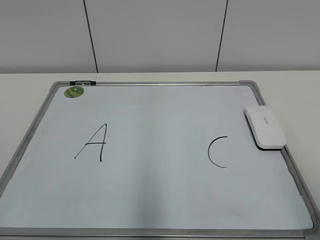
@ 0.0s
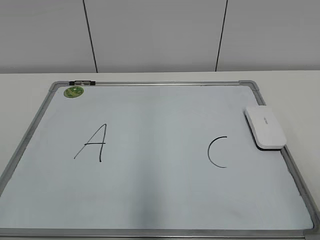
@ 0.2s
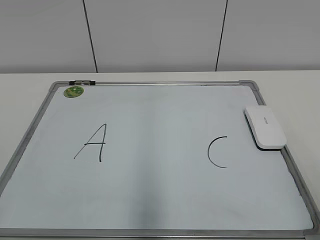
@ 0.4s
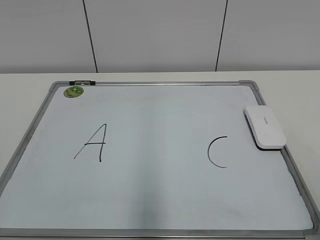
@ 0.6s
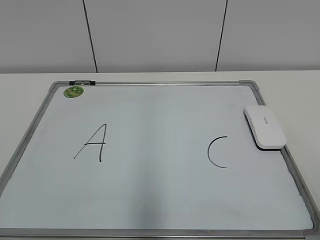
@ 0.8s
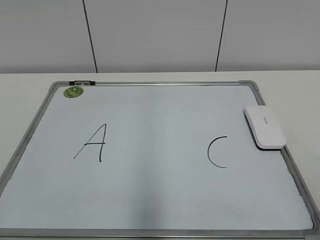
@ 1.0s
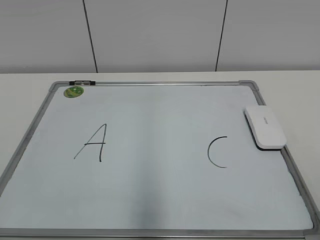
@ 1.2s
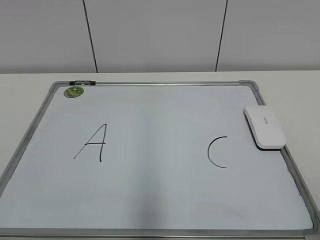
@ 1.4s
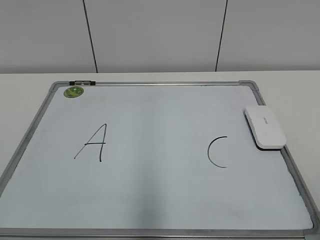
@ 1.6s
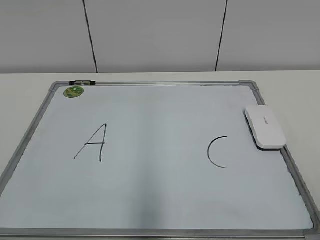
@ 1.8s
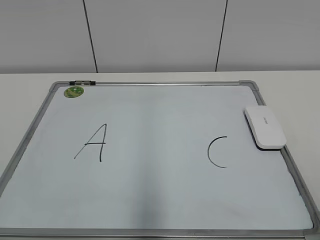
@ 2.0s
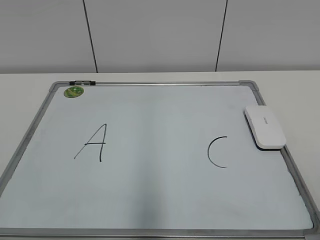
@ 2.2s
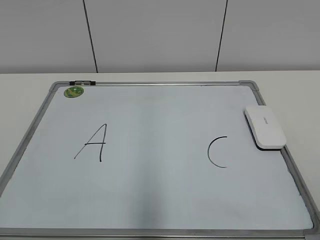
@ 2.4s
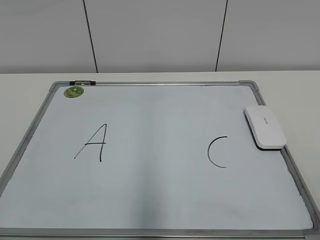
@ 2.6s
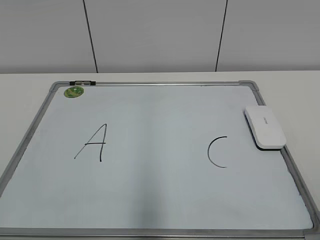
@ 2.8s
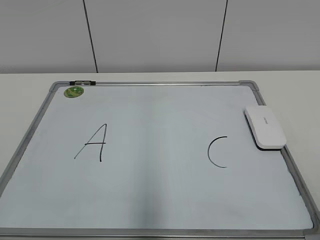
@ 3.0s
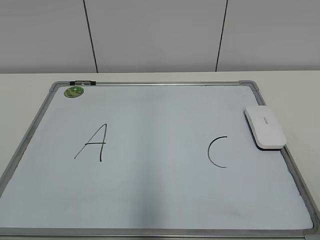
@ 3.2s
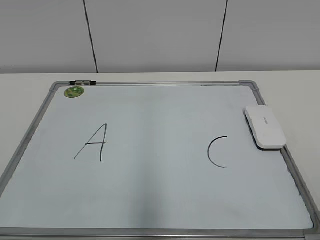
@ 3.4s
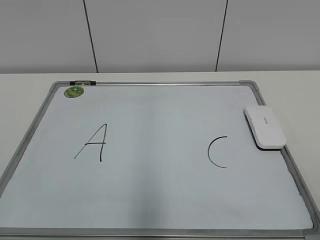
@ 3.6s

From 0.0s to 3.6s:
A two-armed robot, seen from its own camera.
Task of the whole recording: pick up the eraser on the blackboard and erase the letter "B".
From 1.8s to 3.6s: Neither gripper changes place.

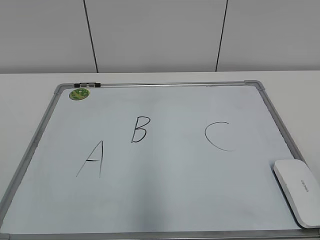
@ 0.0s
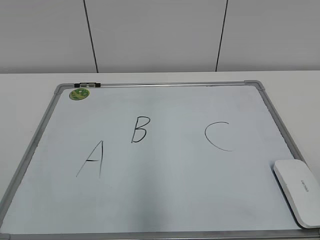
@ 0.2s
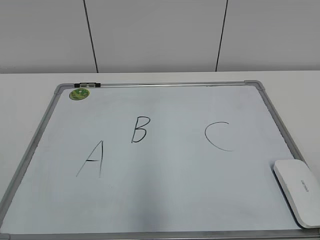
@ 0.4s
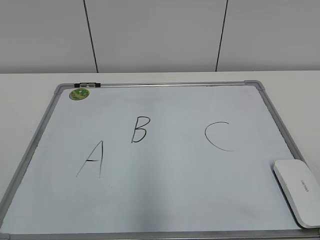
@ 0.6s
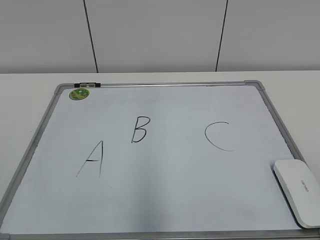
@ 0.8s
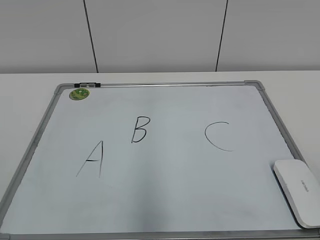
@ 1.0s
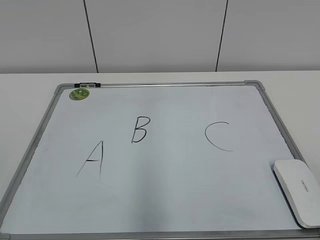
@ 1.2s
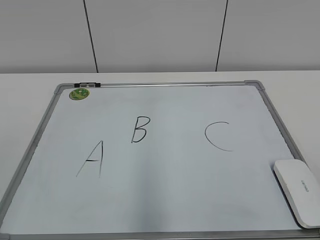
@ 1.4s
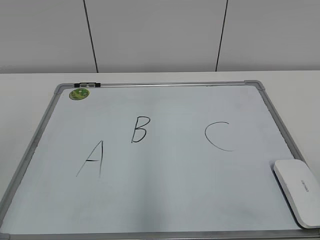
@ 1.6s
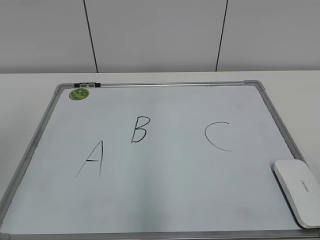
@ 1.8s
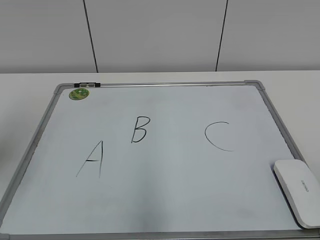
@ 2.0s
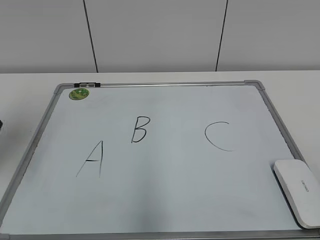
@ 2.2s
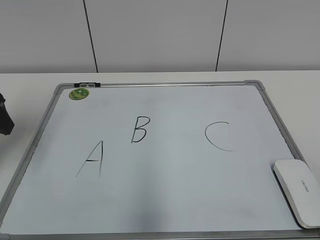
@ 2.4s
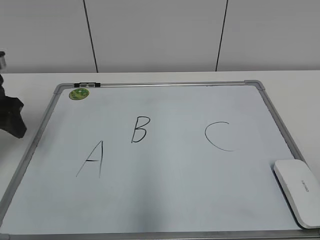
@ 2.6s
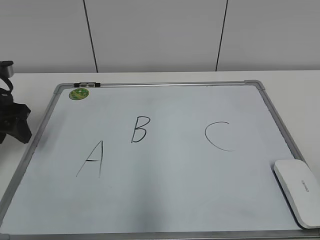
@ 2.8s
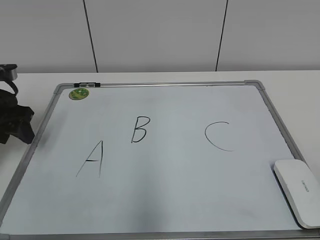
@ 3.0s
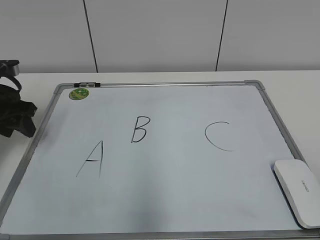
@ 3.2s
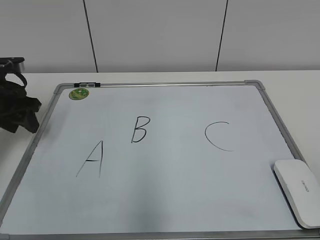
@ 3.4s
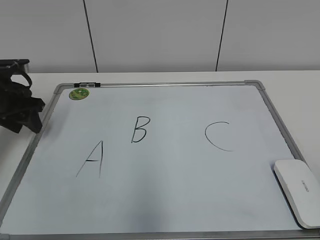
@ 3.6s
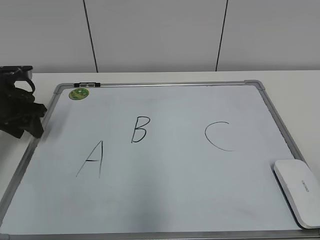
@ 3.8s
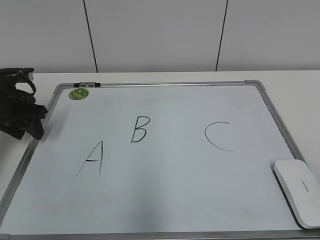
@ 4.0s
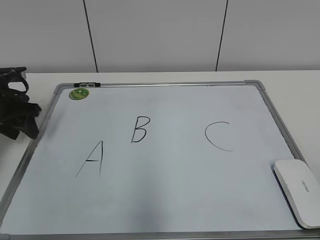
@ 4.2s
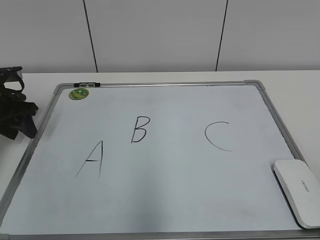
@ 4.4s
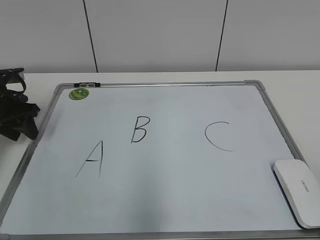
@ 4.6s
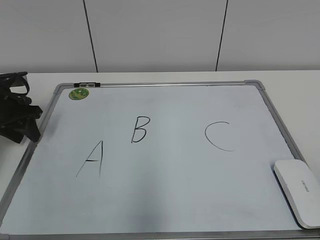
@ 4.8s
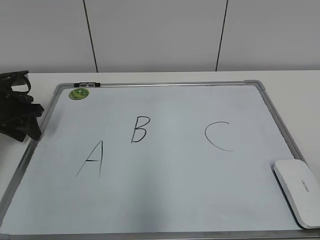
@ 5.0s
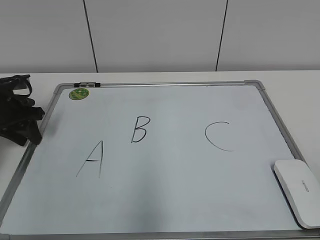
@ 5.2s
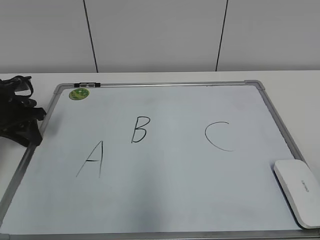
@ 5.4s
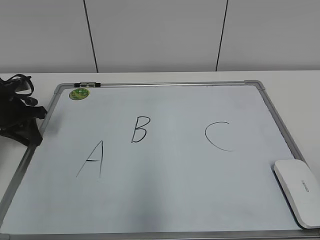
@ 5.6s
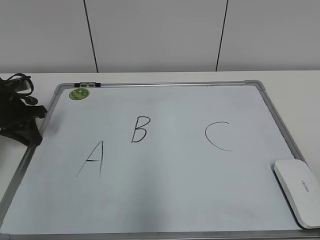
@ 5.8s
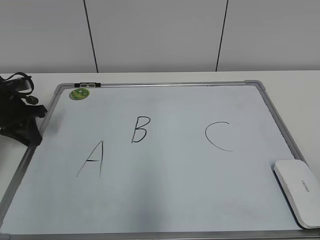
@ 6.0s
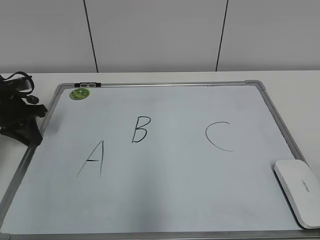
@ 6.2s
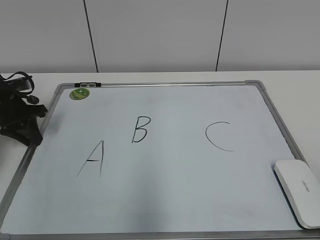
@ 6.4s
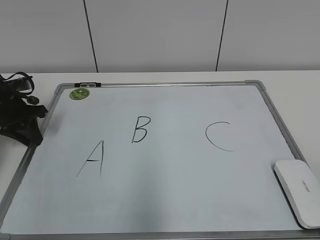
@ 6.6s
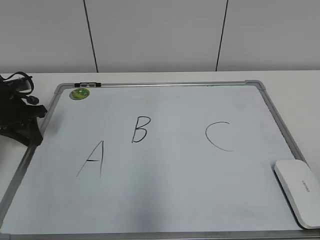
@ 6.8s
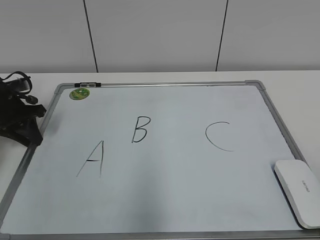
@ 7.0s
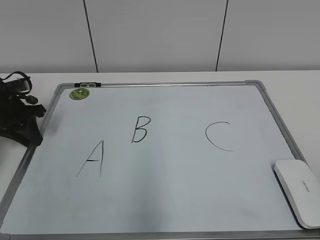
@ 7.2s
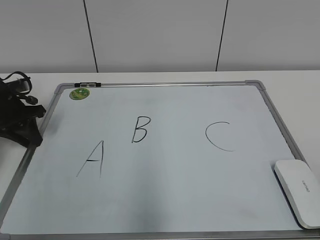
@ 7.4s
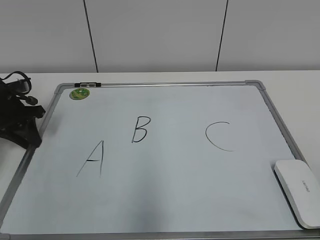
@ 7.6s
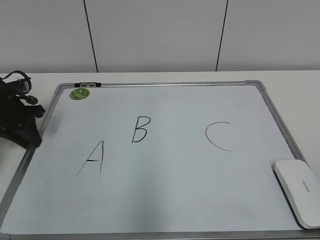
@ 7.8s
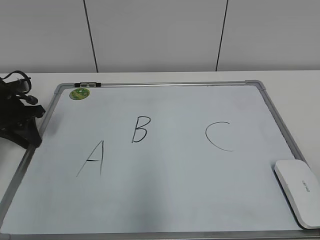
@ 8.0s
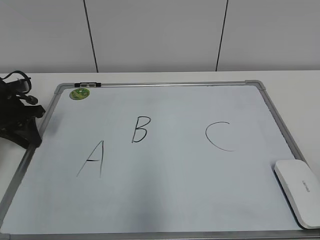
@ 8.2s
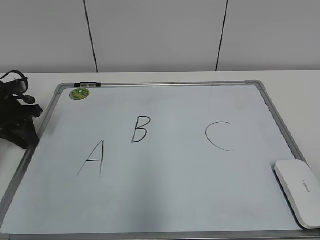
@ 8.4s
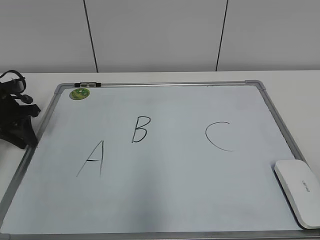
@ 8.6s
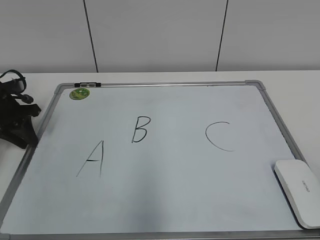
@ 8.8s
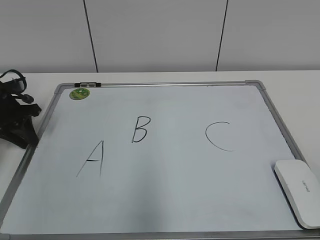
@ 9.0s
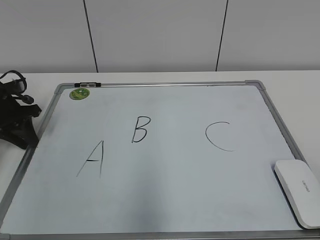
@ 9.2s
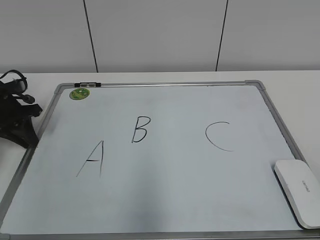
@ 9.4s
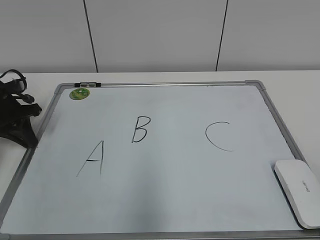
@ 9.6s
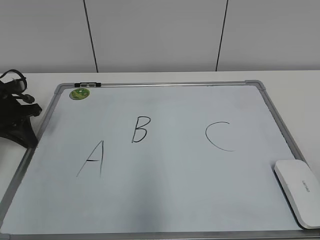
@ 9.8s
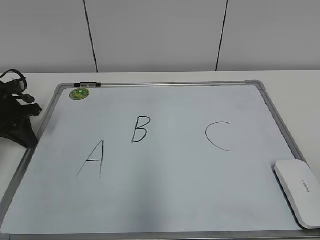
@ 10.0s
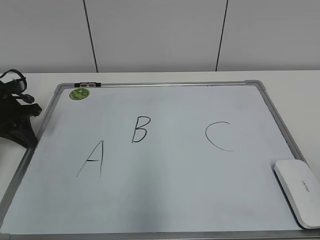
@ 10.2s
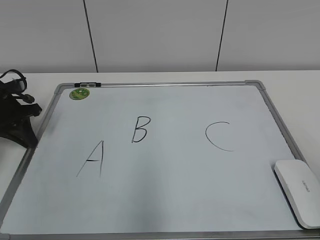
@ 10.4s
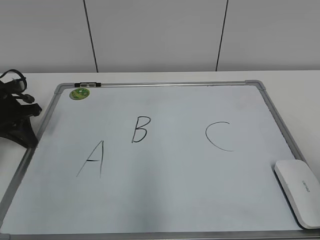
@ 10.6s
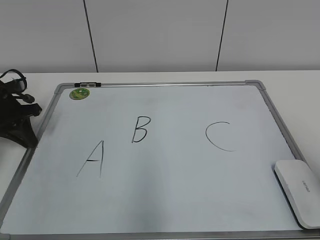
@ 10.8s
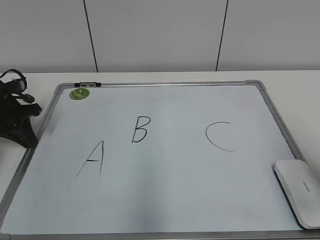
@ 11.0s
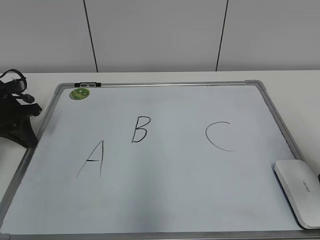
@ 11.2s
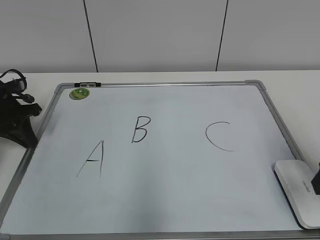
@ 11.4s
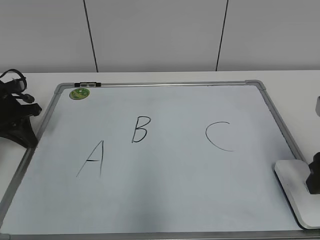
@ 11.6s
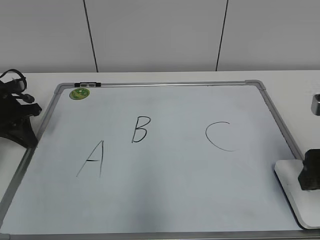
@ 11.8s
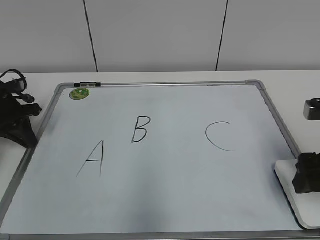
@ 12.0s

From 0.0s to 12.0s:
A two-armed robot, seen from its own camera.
Task of the whole recording: pick up the eraser on the blackboard and erase the letter "B".
Step, from 0.0s to 9.4s: Hold the drawing board steady with your left hand.
From 1.6s to 3.0s: The left gripper moves forward and downward, some 30 cm.
From 3.0s to 4.4s: The left gripper ends up some 5 cm from where it was.
From 4.4s to 6.0s: The left gripper closes up.
From 6.0s to 7.6s: Neither gripper changes place.
From 7.6s to 9.0s: Both grippers stay put.
From 10.4s to 12.0s: The right gripper is displaced forward and downward by approximately 20 cm, and opens up.

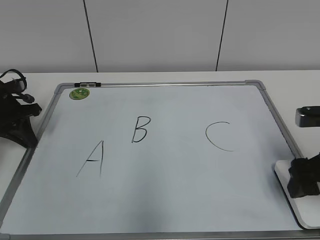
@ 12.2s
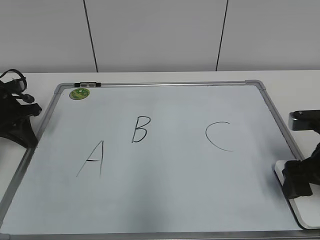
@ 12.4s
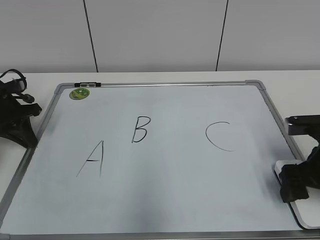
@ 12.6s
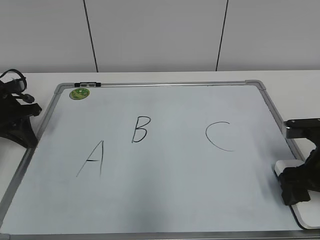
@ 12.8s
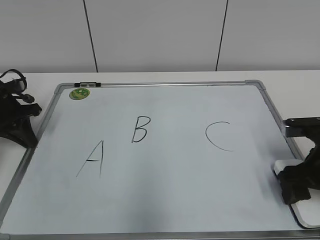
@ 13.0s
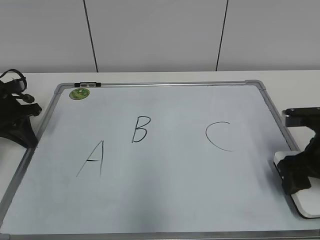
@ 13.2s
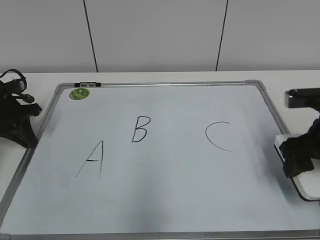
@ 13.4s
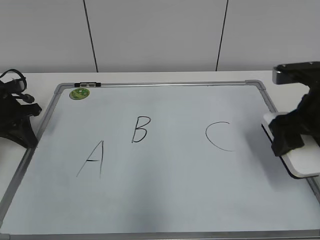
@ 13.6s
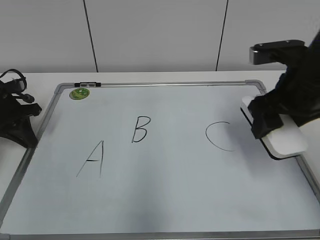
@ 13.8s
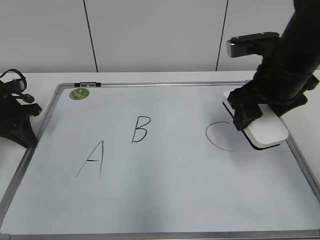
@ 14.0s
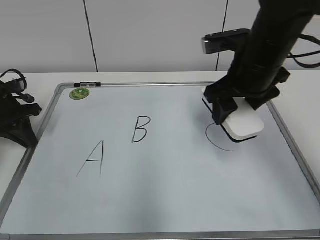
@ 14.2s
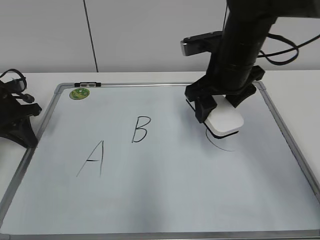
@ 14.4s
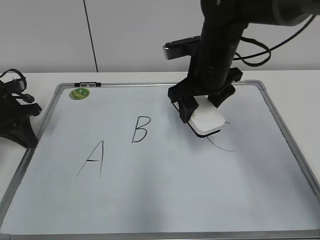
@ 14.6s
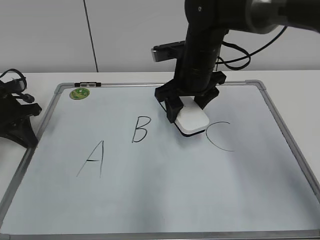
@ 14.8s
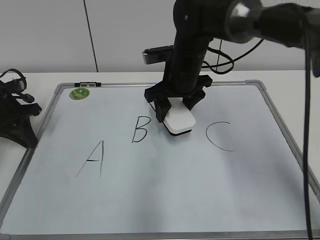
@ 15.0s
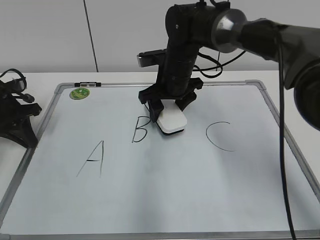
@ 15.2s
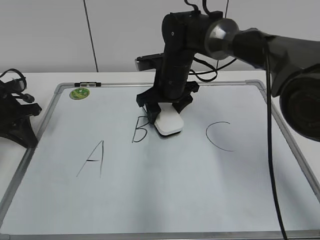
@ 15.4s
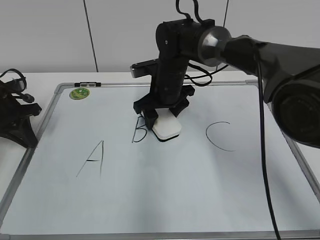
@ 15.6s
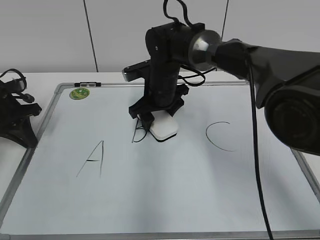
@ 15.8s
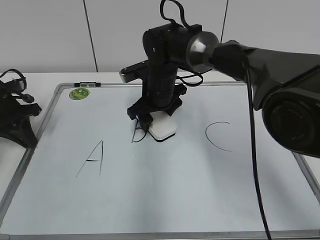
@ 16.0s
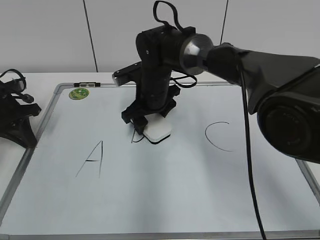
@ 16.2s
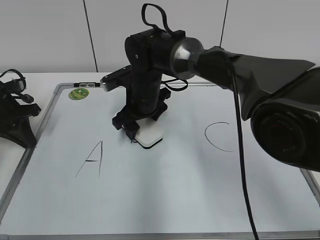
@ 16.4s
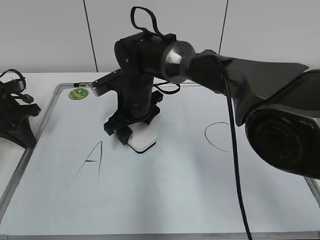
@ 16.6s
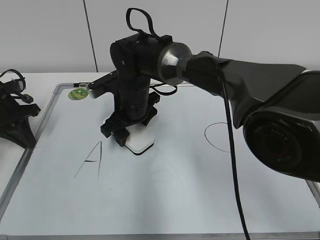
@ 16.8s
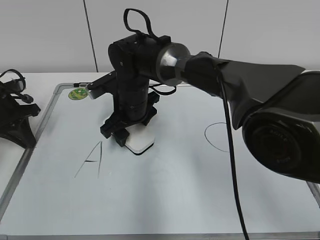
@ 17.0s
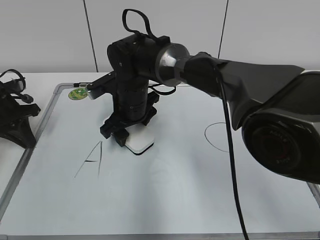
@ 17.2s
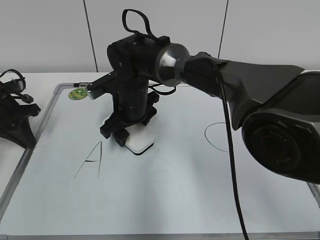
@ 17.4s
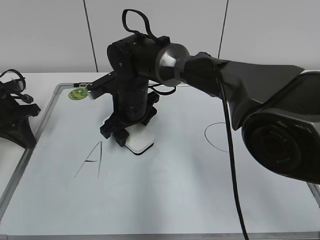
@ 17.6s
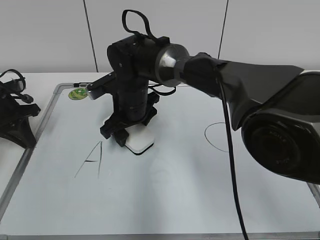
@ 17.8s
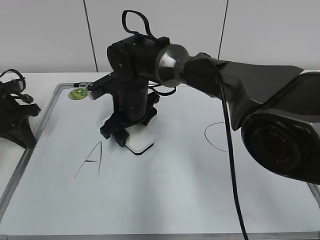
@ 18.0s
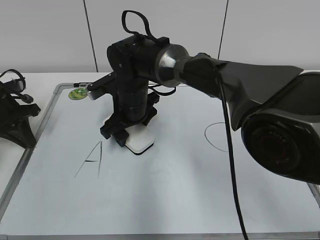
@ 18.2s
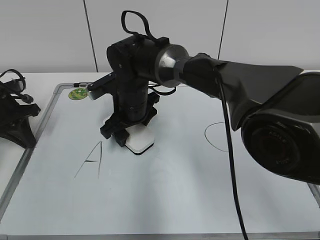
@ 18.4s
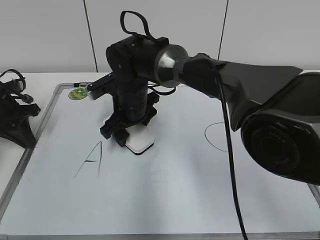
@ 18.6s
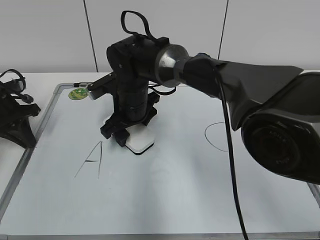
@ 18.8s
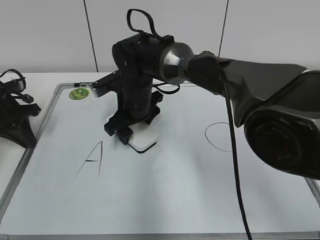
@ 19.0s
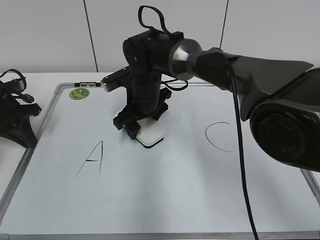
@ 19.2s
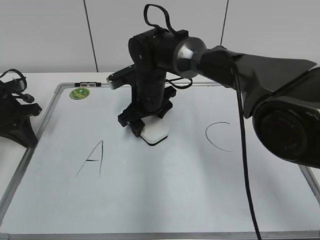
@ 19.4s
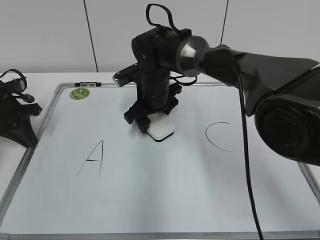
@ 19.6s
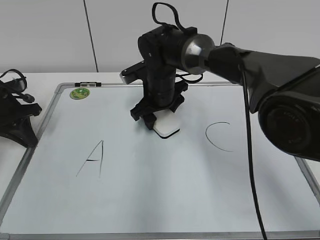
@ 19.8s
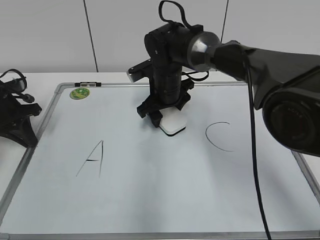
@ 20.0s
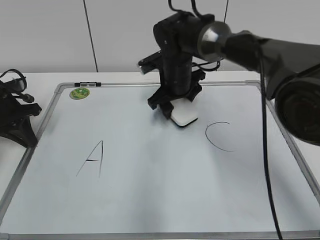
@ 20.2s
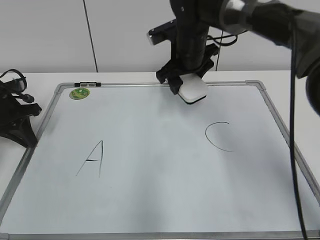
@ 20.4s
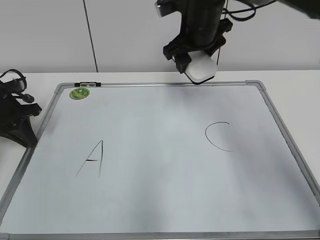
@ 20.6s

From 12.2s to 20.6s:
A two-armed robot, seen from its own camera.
Task of the whole recording: pick up the eraser on the blackboard and erase the letter "B".
Step, from 13.0s to 20.0s: Erase the letter B with your right hand.
From 12.2s to 13.6s: The right gripper changes place by some 5 cm, and closes.
From 13.6s to 15.0s: The right gripper moves to the left and forward, approximately 25 cm.
From 15.0s to 16.4s: The right gripper moves to the left and downward, about 10 cm.
From 16.4s to 19.2s: The grippers move only a little.
From 19.2s to 20.6s: The right gripper moves upward and to the right, approximately 15 cm.
